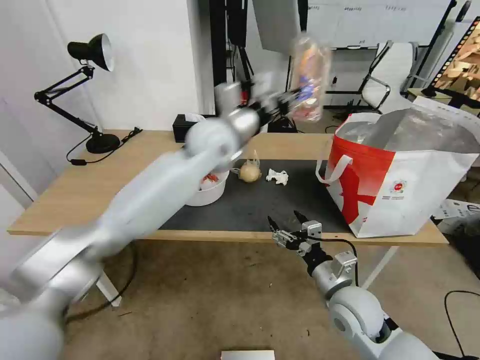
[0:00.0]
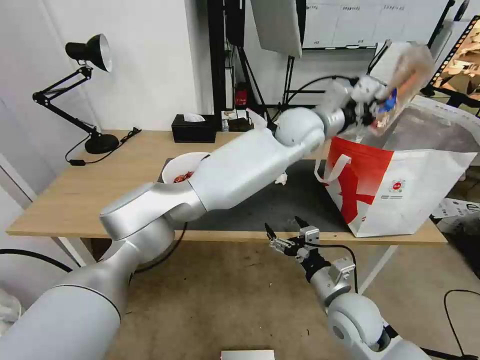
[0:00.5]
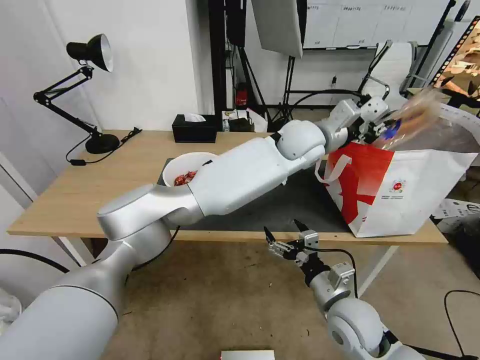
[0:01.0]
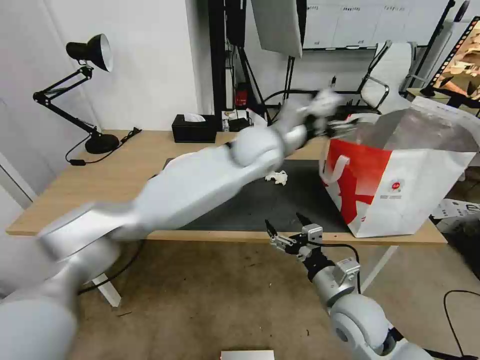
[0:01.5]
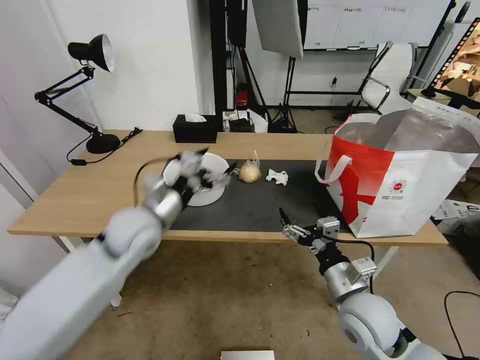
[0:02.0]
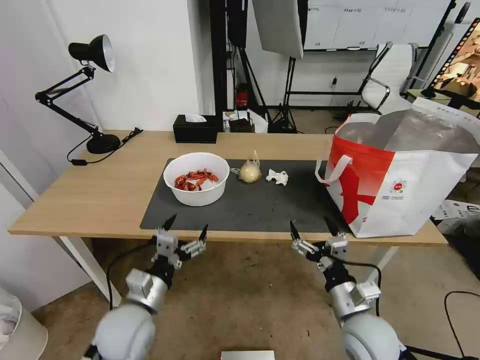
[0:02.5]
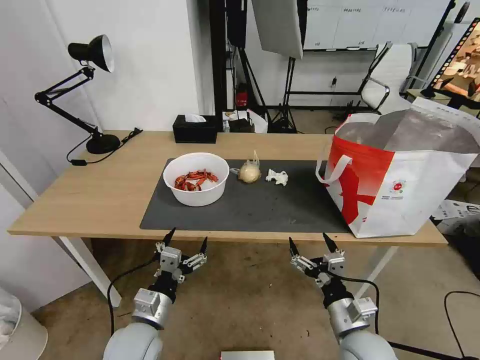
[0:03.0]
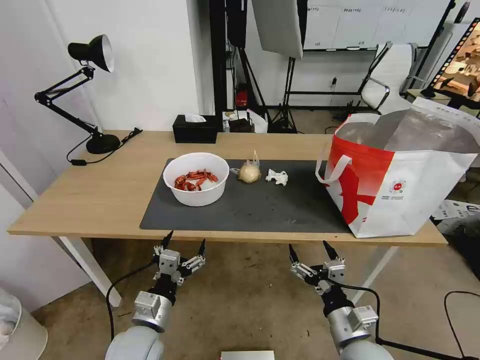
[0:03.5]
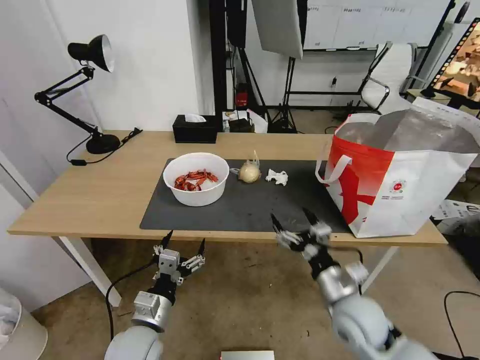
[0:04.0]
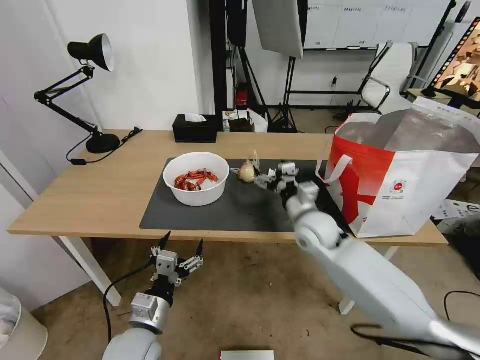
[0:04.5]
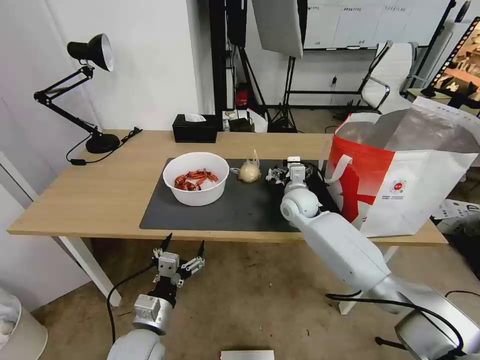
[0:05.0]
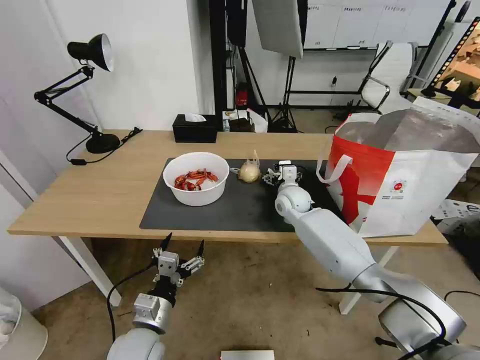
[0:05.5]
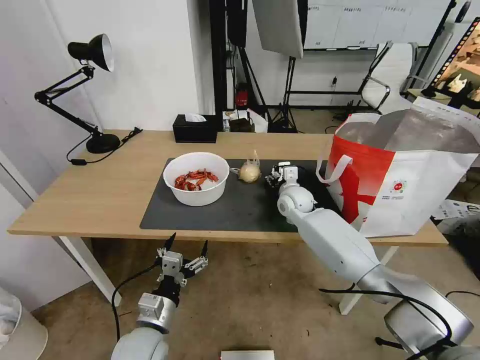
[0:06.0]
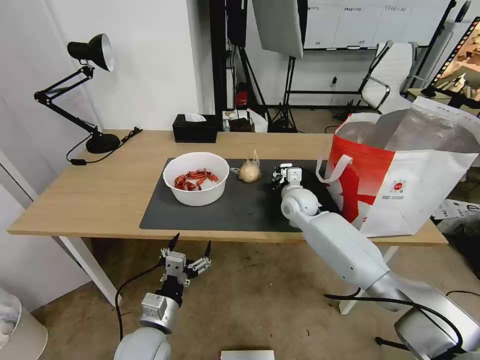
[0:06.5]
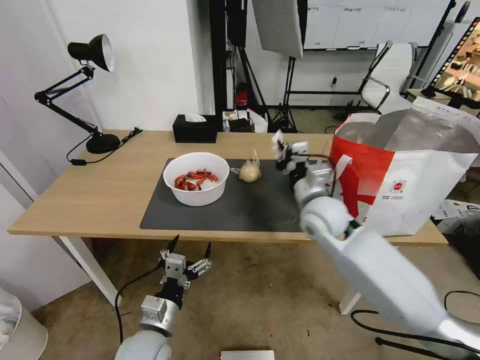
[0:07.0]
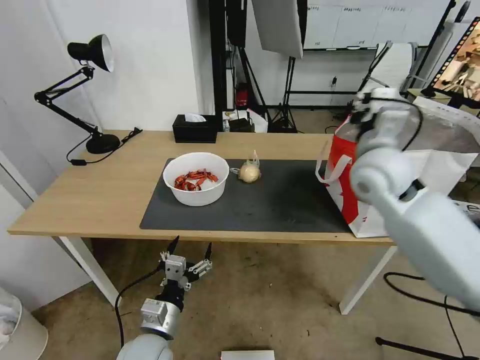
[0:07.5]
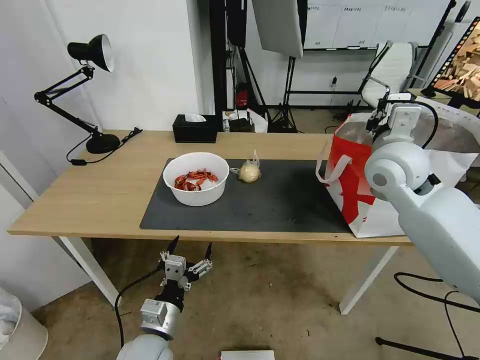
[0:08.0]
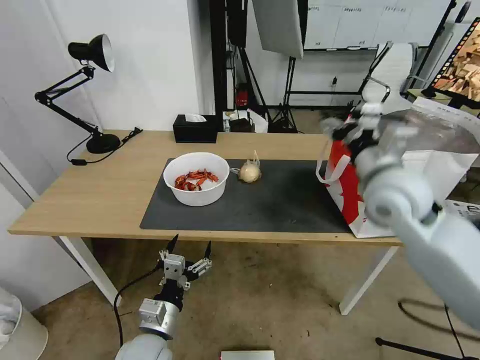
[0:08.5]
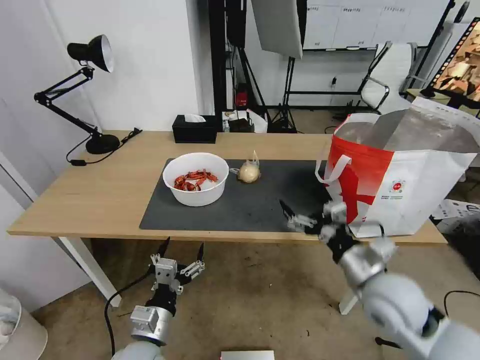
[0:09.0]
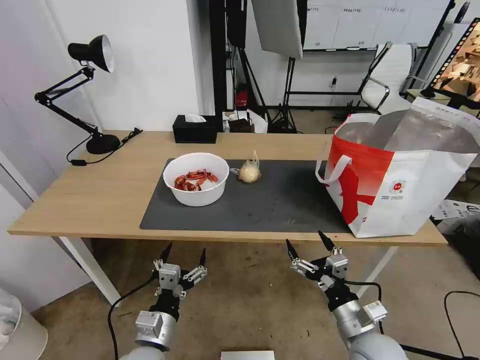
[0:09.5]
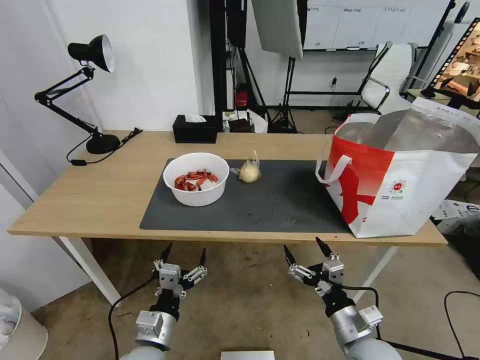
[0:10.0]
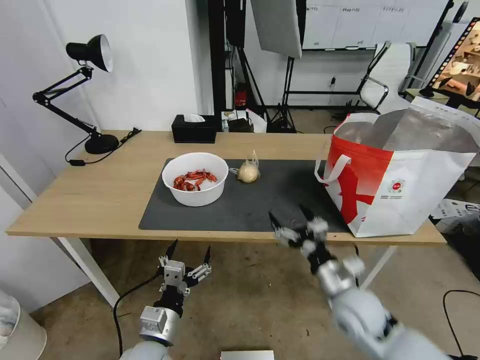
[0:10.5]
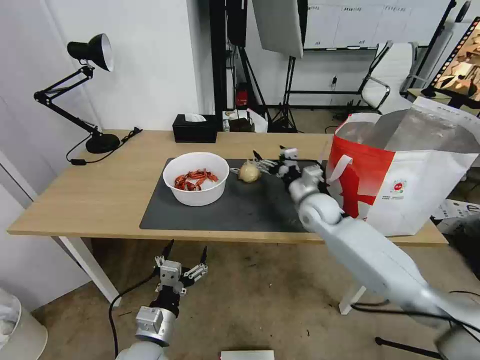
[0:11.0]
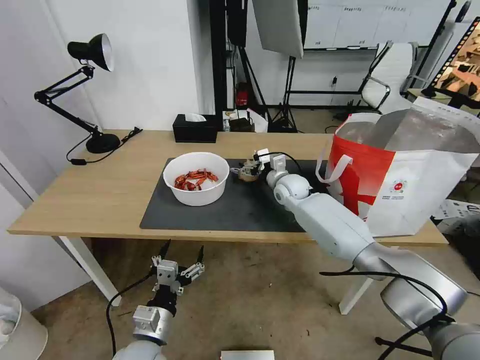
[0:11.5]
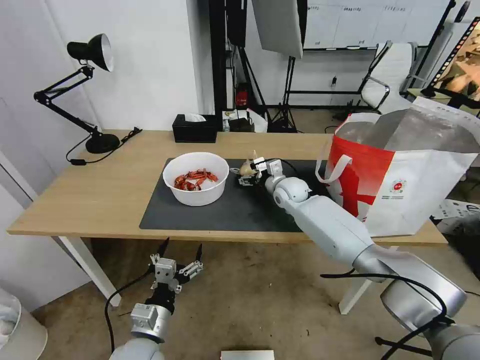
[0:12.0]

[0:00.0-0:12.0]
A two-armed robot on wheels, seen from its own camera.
Task of the whole recording: Pick up the trash from the table and place it into the takeout bag.
0:00.0 to 0:02.0: The left gripper heads to the left, downward and backward, covering approximately 20 cm, and opens its fingers.
0:02.0 to 0:04.0: The left gripper goes roughly 25 cm backward and downward.
0:04.0 to 0:06.0: The right gripper heads forward, covering approximately 30 cm.
0:06.0 to 0:08.0: The right gripper heads upward, backward and to the right, covering some 30 cm, and closes.
0:08.0 to 0:10.0: The right gripper goes roughly 40 cm downward and backward, and opens its fingers.
0:10.0 to 0:12.0: The right gripper shifts some 40 cm forward.

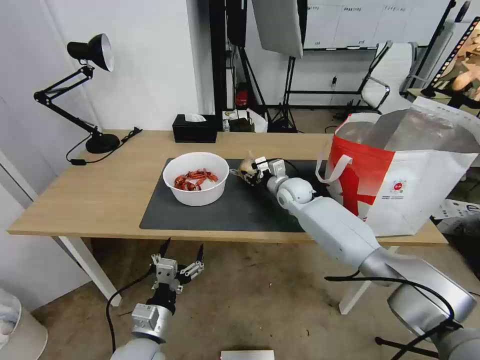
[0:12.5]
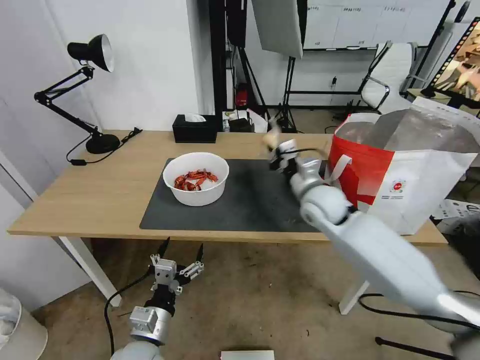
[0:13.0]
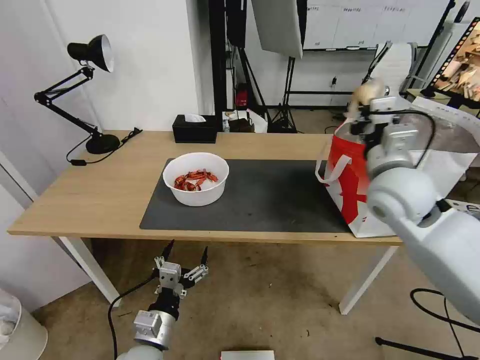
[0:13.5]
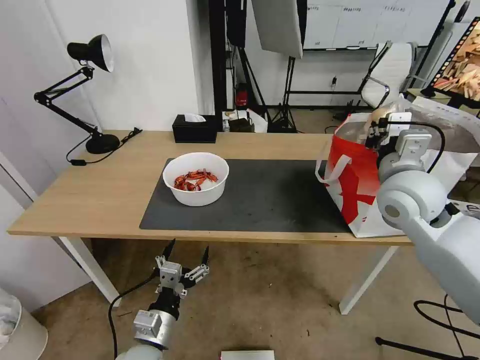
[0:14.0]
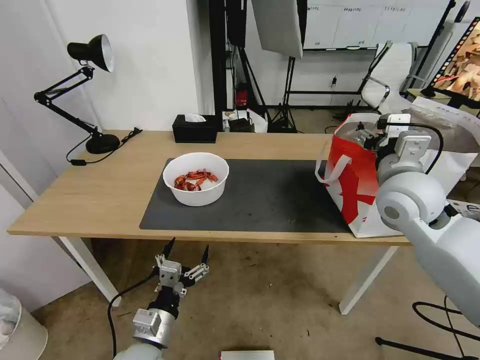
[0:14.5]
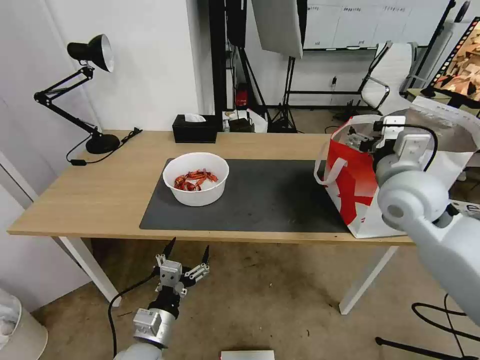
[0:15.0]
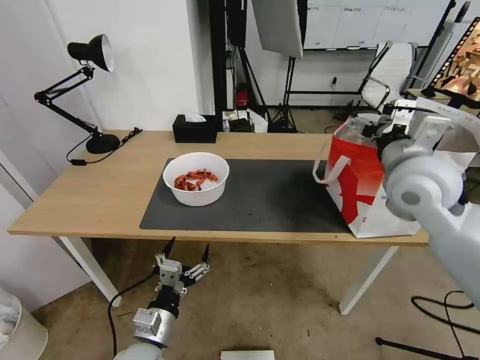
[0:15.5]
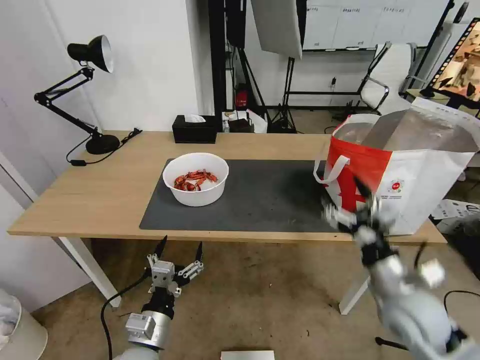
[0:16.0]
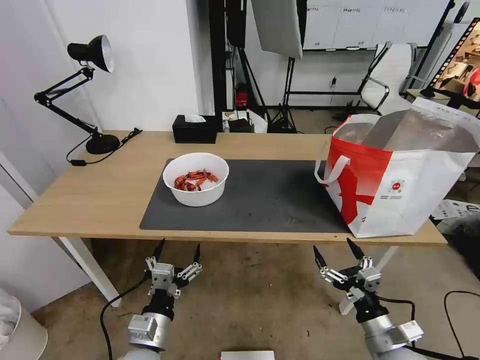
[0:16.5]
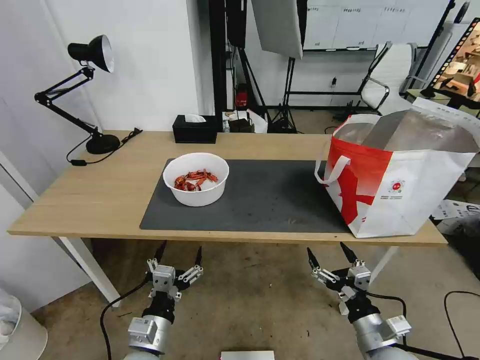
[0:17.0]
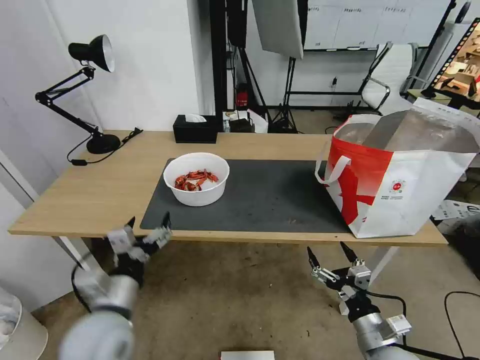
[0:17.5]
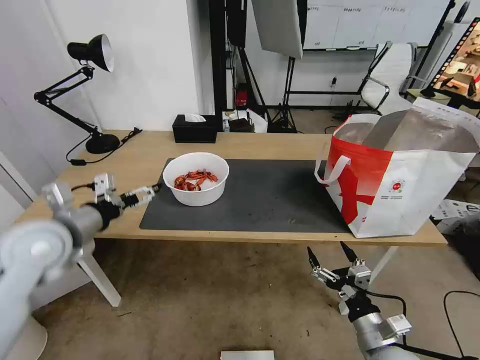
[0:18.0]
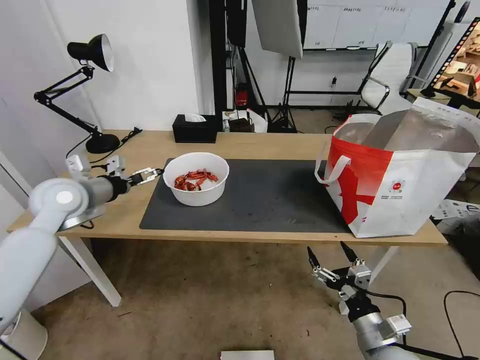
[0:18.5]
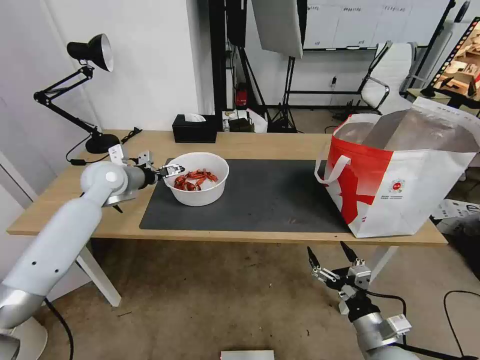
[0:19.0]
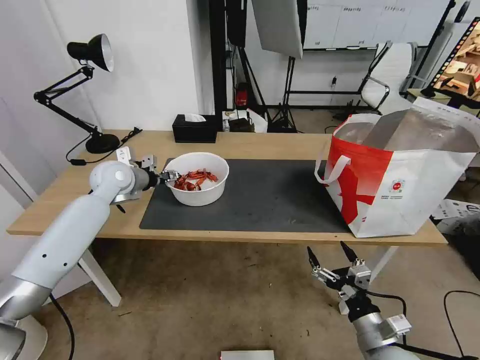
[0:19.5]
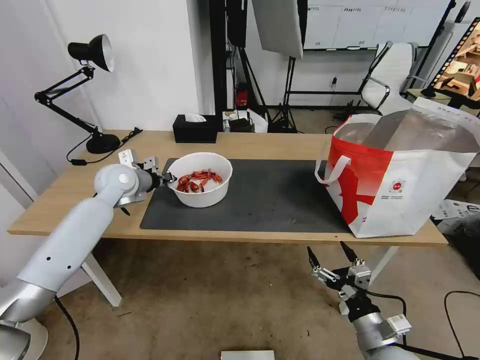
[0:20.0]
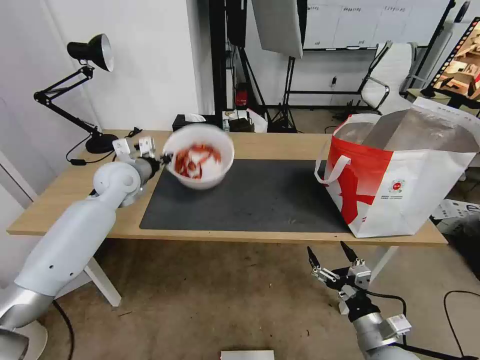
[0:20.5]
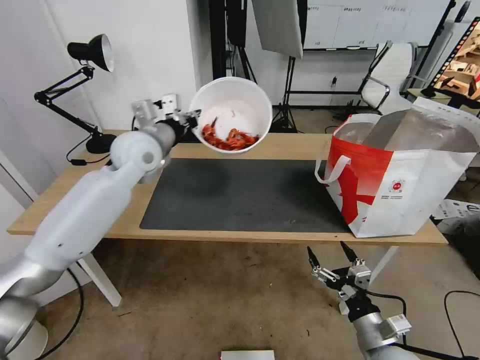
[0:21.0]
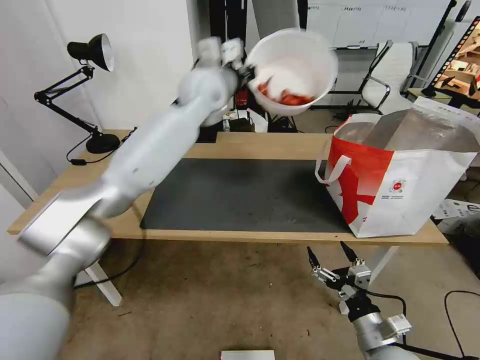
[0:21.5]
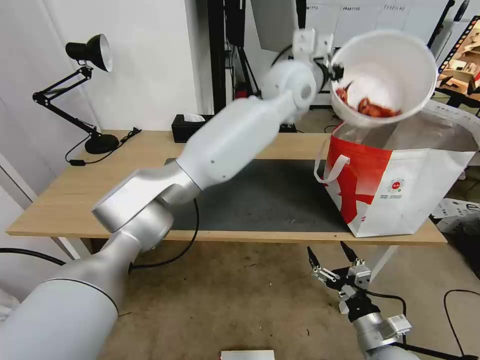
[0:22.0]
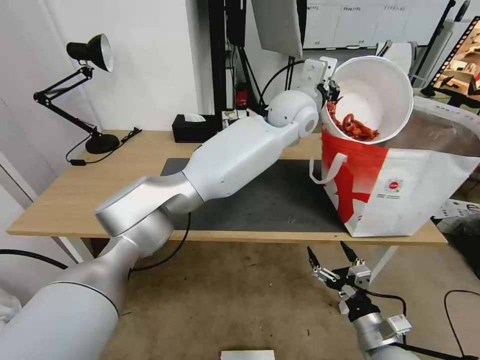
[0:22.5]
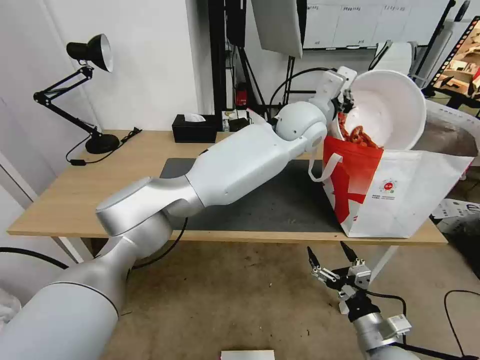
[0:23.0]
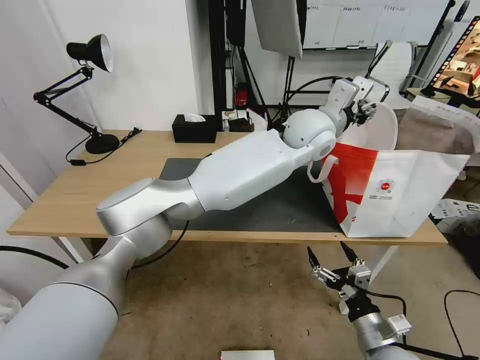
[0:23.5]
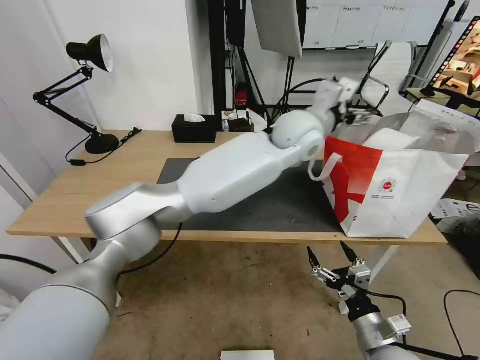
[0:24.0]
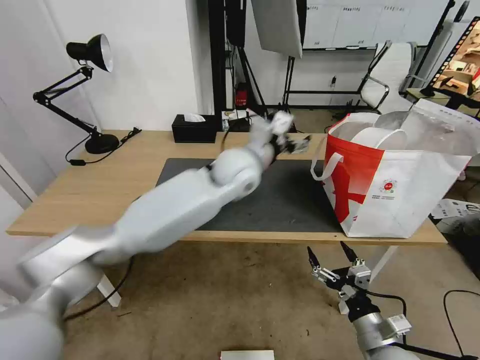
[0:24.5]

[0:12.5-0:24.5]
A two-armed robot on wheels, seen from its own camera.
Task of the whole recording: Pick up the trash from the table and place it into the takeout bag.
0:12.5 to 0:14.5: The right gripper is displaced backward, upward and to the right by roughly 30 cm, and opens up.
0:14.5 to 0:16.5: The right gripper moves downward and backward, roughly 35 cm.
0:16.5 to 0:18.5: The left gripper travels forward, upward and to the left by roughly 40 cm.
0:18.5 to 0:20.5: The left gripper is displaced forward and to the right by roughly 10 cm, and closes its fingers.
0:20.5 to 0:22.5: The left gripper goes approximately 40 cm to the right.
0:22.5 to 0:24.5: The left gripper shifts approximately 15 cm to the left, downward and backward, and opens up.

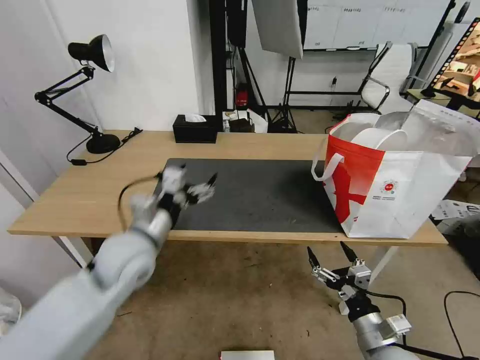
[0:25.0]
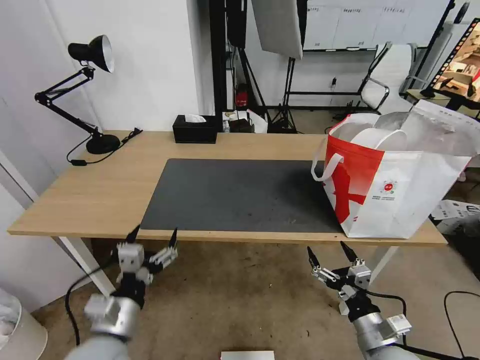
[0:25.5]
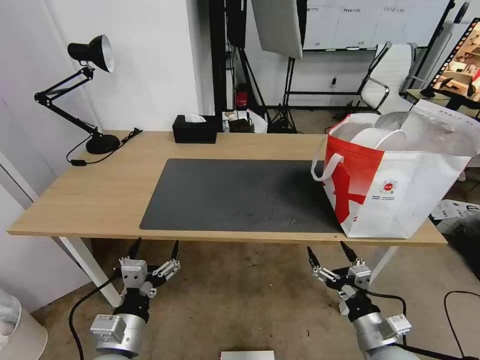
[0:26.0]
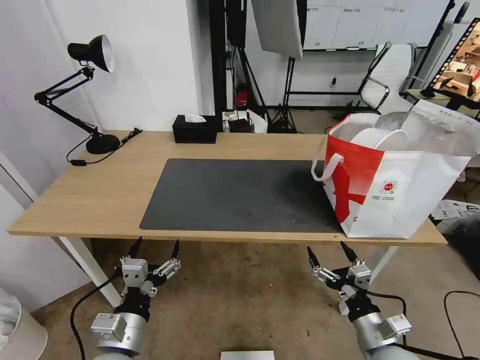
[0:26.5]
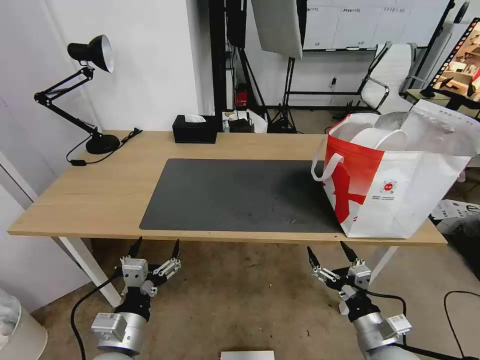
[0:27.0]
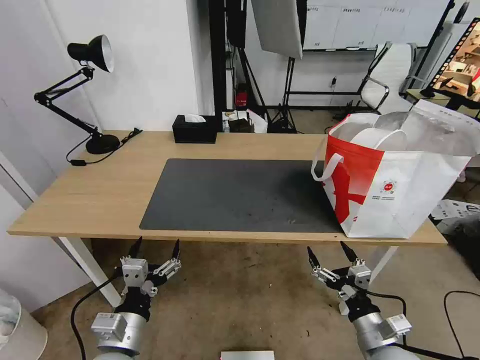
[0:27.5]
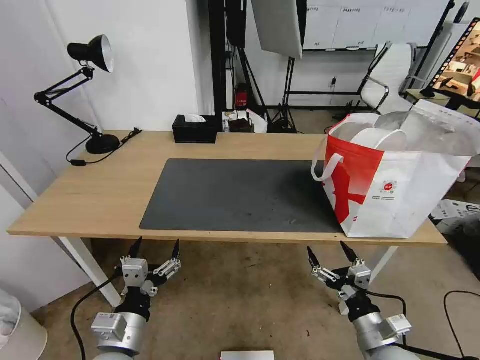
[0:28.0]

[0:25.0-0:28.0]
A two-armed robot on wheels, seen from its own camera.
Task of the whole recording: Pick up the trash from the table and place it into the takeout bag.
0:25.0 to 0:26.5: The left gripper heads backward and downward, covering about 20 cm.
0:26.5 to 0:28.0: The two grippers keep their place.
